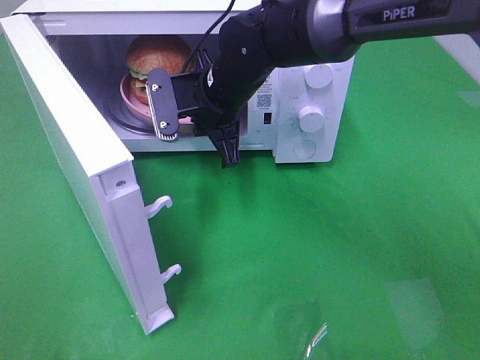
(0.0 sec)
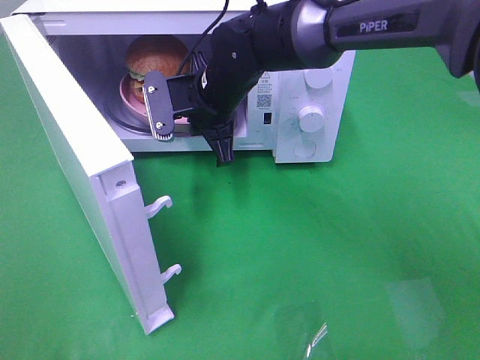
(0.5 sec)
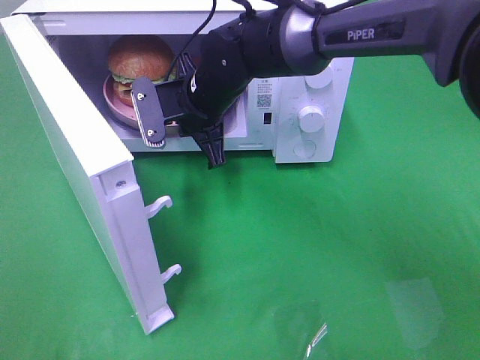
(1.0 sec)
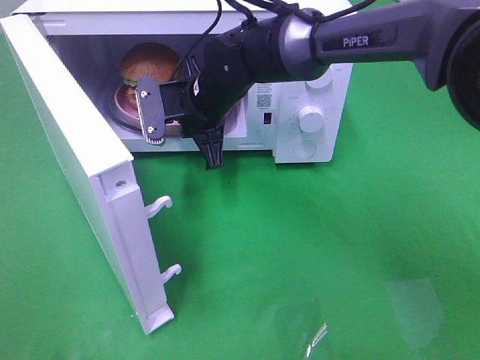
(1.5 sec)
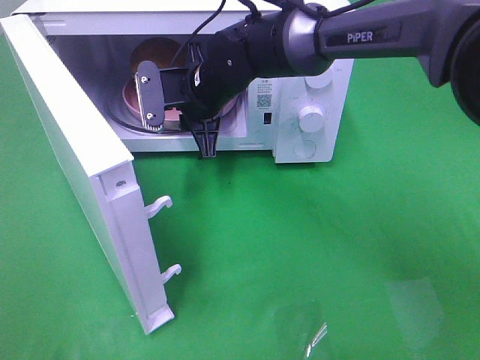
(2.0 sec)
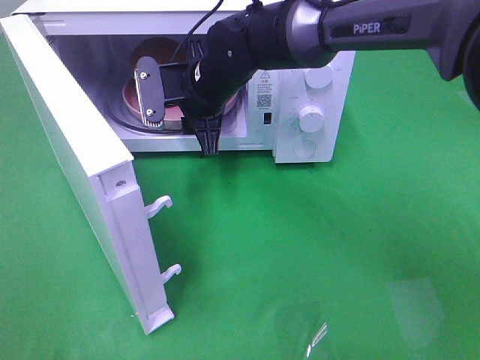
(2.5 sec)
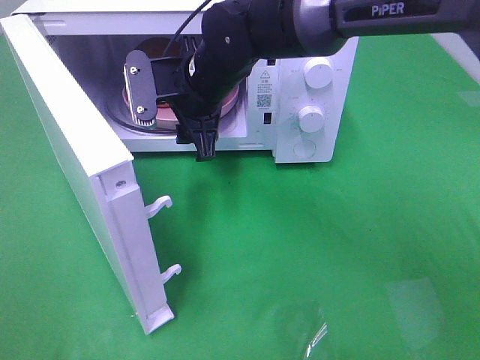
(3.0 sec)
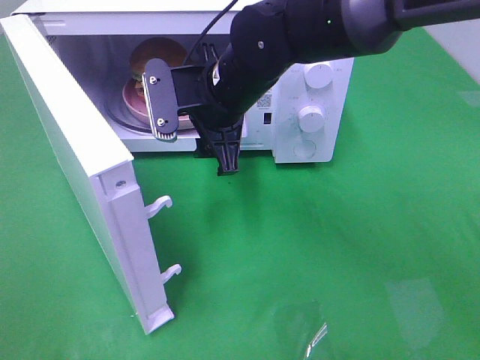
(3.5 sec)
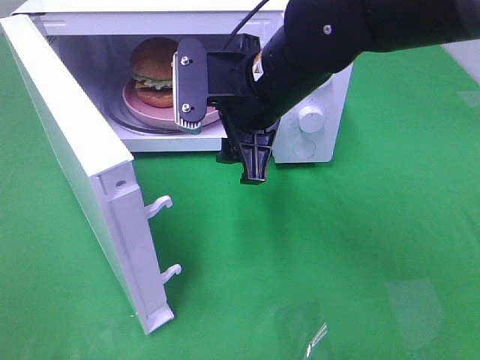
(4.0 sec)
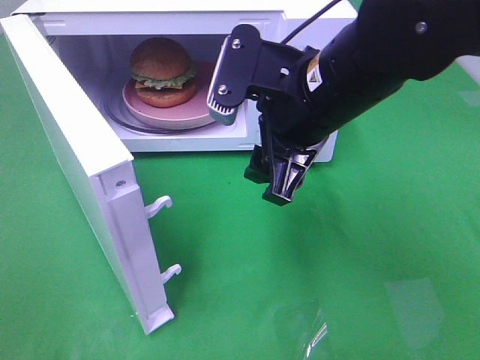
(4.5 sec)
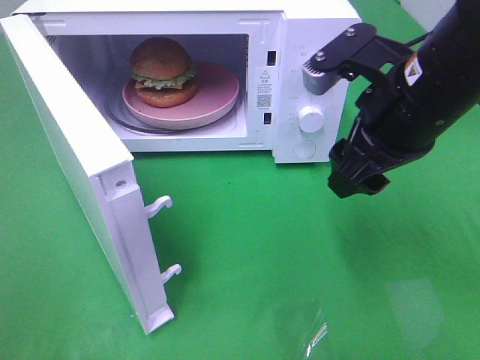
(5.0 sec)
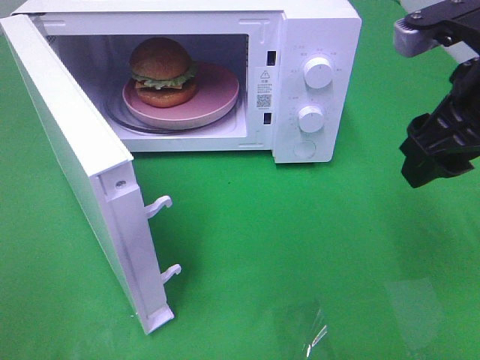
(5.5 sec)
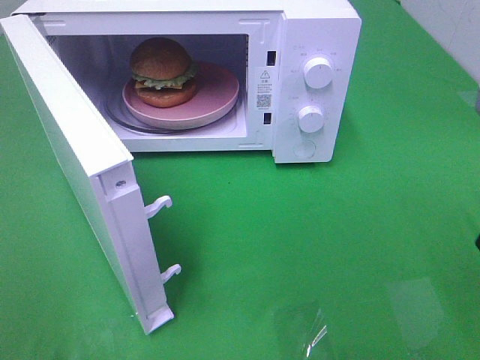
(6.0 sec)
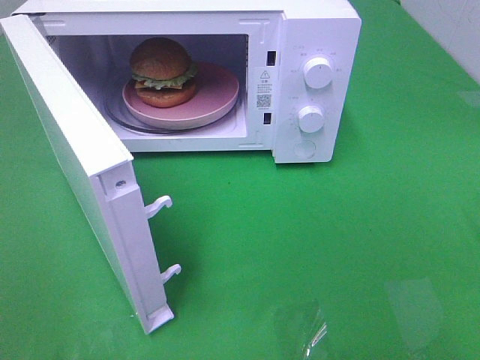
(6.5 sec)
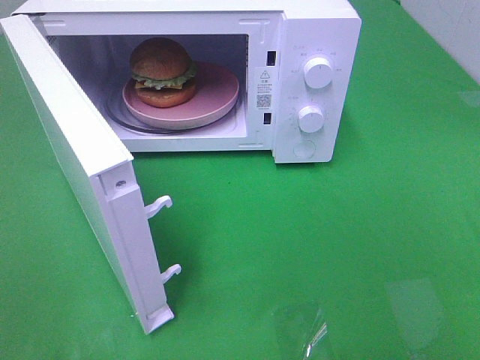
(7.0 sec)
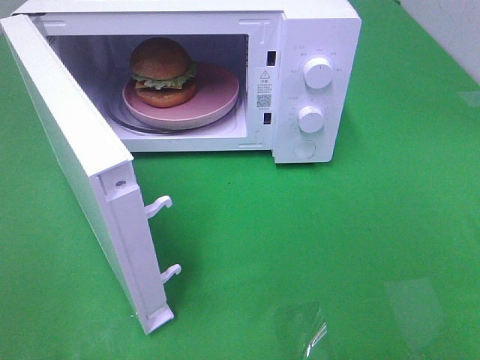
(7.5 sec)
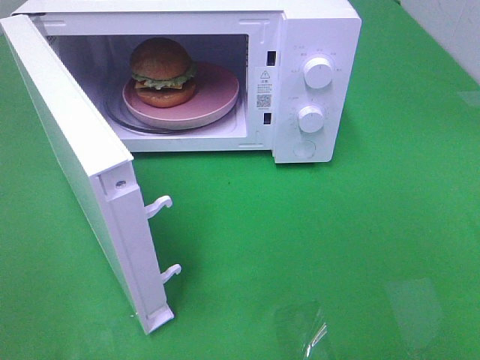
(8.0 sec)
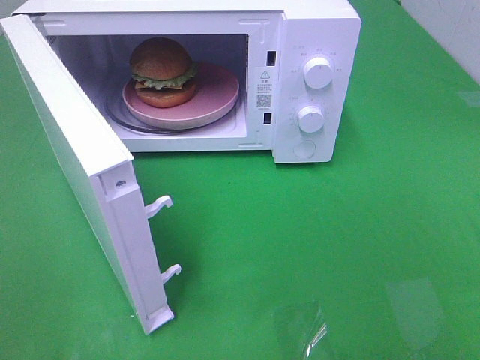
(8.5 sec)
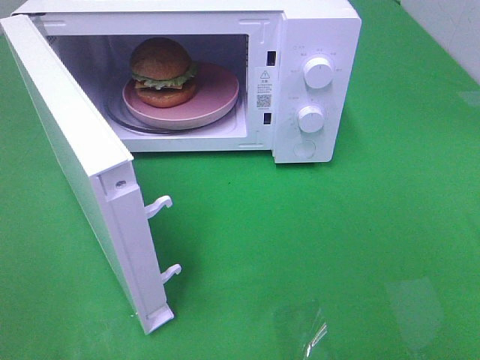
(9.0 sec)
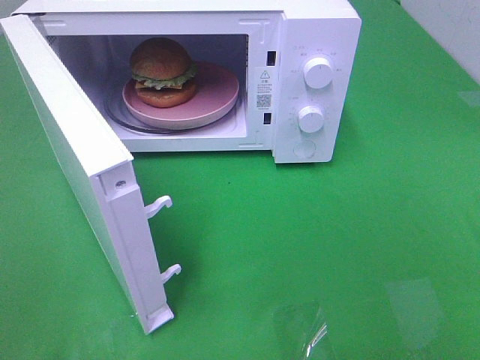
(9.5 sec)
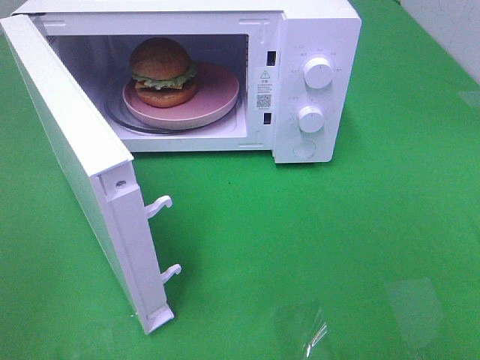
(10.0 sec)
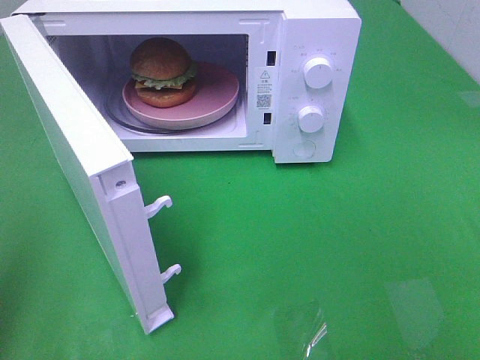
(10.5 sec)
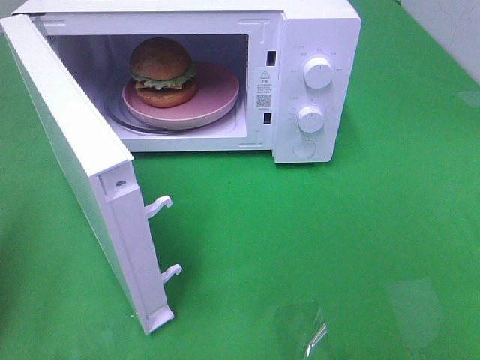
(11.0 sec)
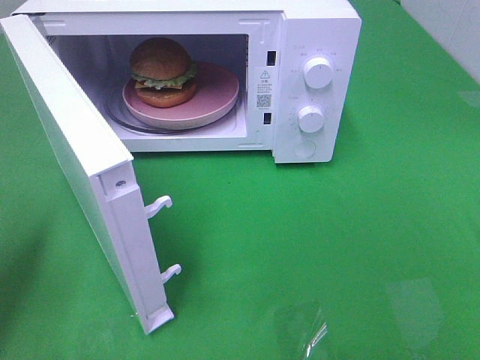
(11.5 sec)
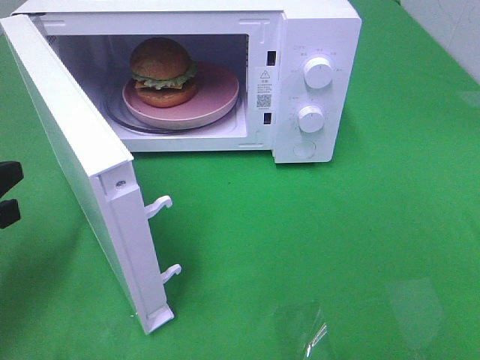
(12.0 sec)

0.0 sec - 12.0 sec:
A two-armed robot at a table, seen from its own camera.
Task of the whole recording: Heat the burger.
0.0 sec - 2.0 sec: The right gripper opens its fingers.
2.0 sec - 4.0 sec: The right gripper is displaced backward, upward and to the right by about 15 cm, and opens up.
4.0 sec - 6.0 sec: The right gripper travels to the right and backward by approximately 25 cm.
10.0 sec - 12.0 sec: The left gripper travels forward and downward by about 25 cm, and closes.

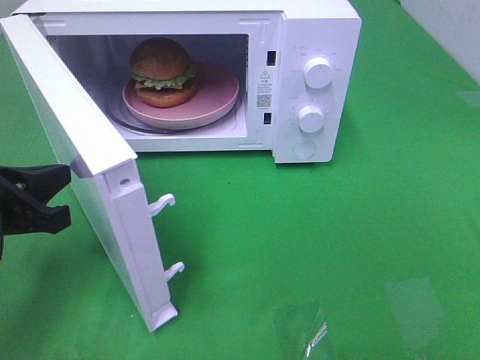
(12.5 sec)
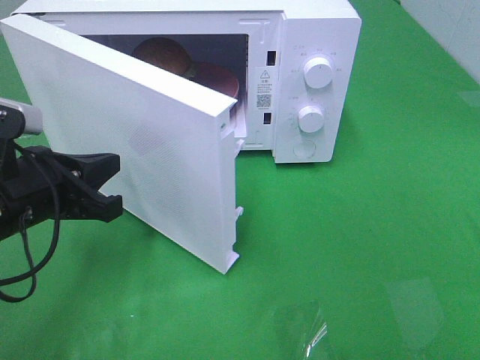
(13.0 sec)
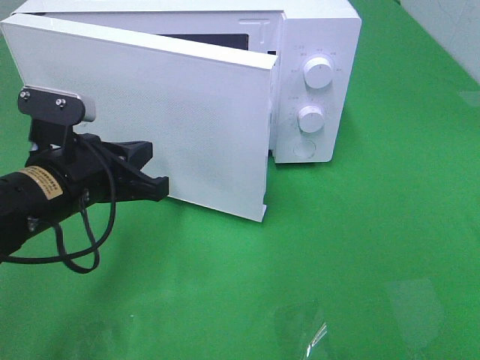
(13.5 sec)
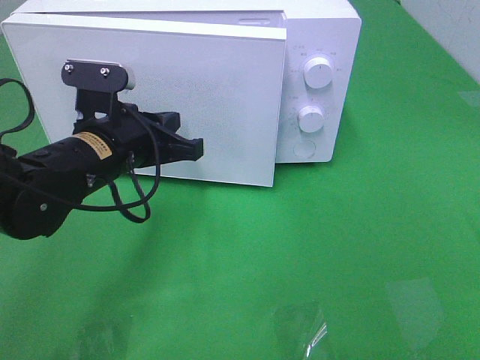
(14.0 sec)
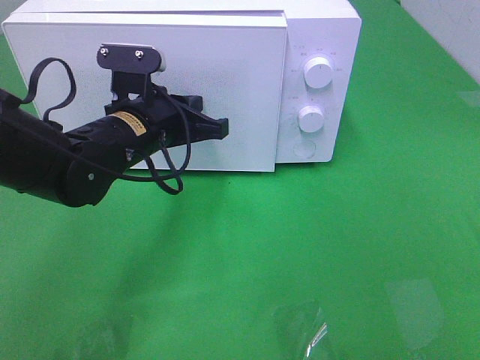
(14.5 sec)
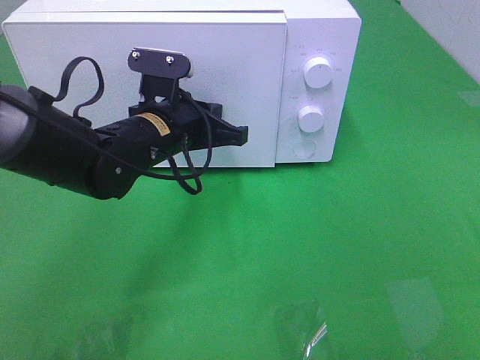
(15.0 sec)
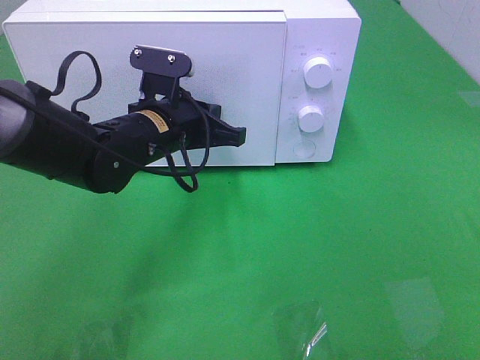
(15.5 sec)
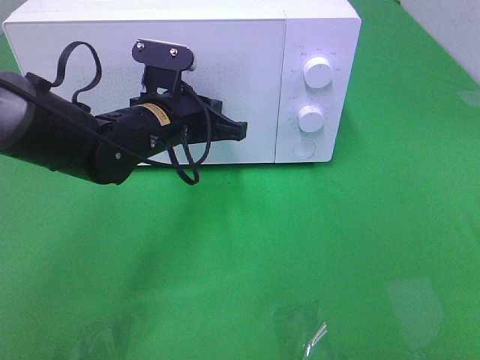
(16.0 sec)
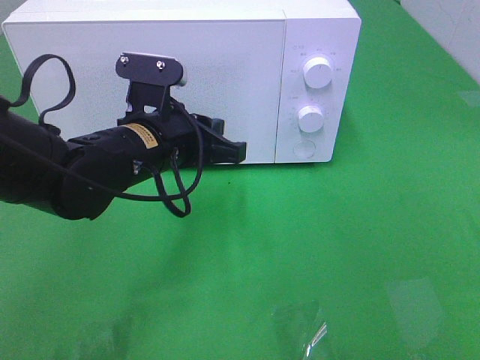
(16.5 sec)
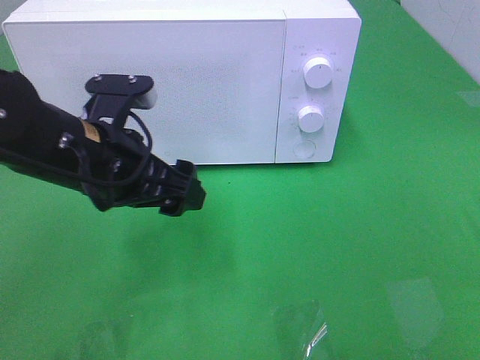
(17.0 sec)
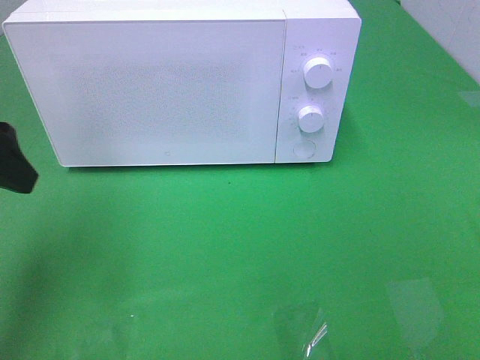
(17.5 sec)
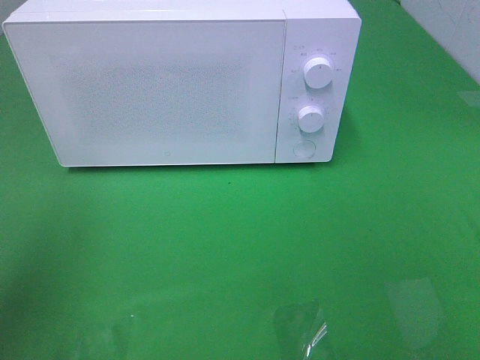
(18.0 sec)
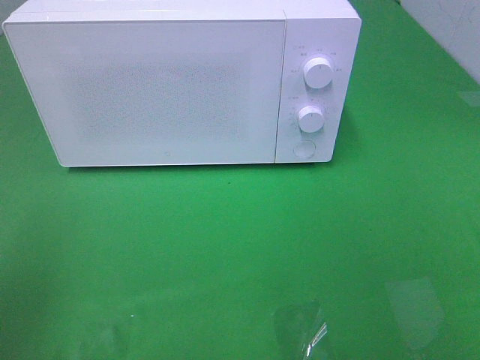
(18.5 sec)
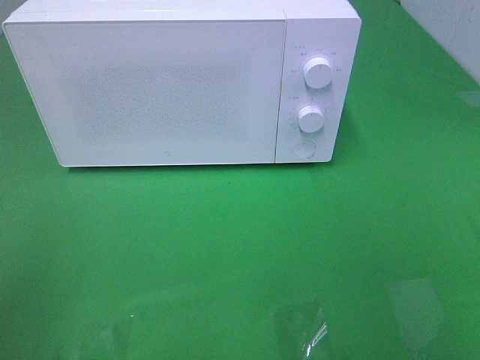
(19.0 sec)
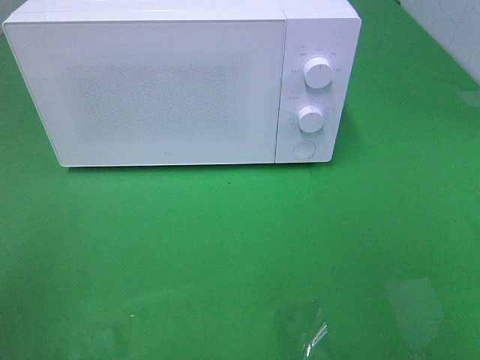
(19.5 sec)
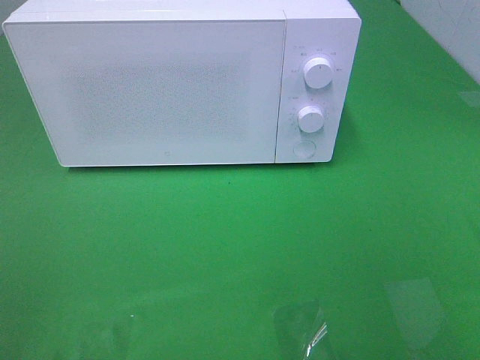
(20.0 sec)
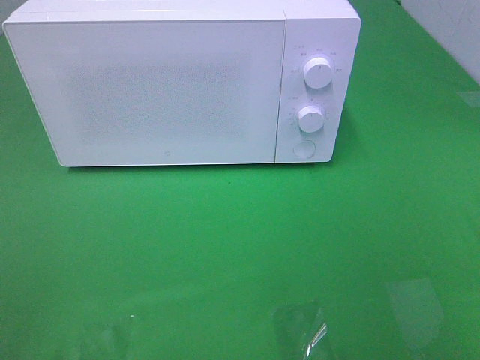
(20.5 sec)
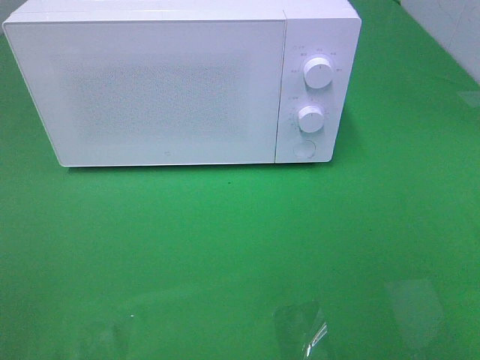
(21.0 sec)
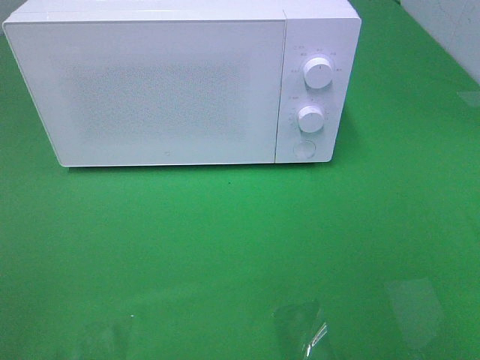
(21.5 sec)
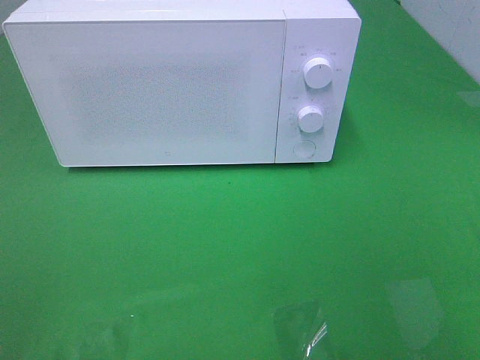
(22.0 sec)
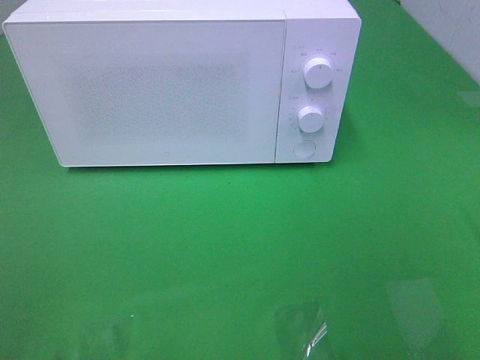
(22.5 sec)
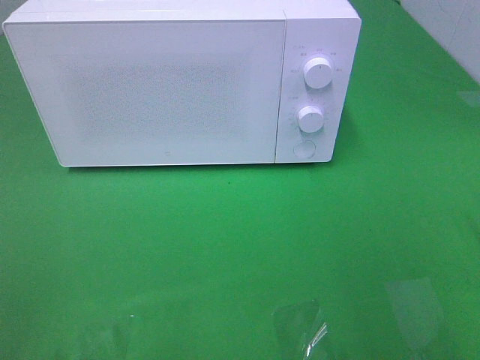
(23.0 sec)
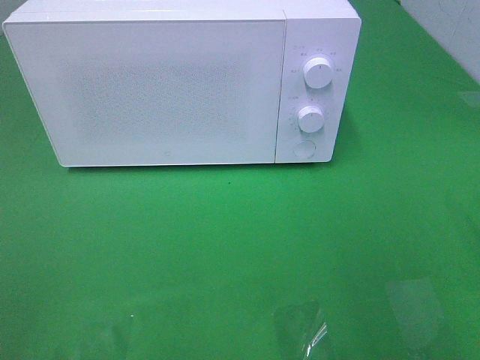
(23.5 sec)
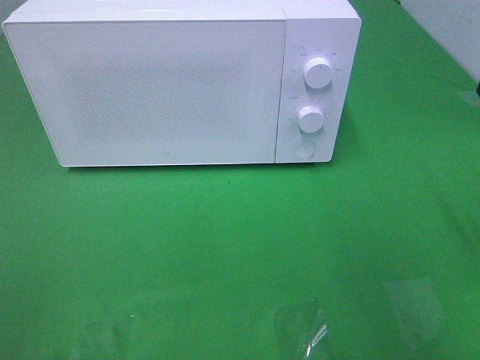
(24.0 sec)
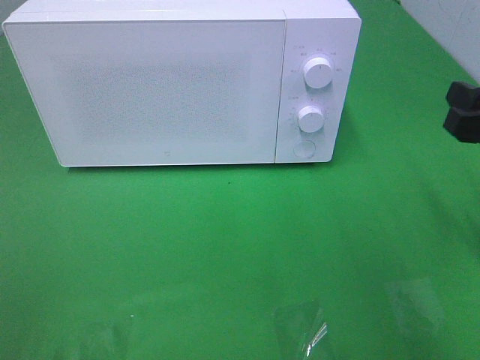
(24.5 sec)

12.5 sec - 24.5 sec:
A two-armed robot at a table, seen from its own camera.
Task of the whole recording: Heat the burger.
Step, 12.5 sec - 15.5 sec: Left hand: close the microwave door.
12.5 sec - 14.5 sec: The left gripper is displaced to the right and forward by approximately 20 cm.
14.5 sec - 16.5 sec: The left gripper opens its fingers.
16.5 sec - 18.5 sec: The left gripper moves to the left, backward and upward, approximately 30 cm, and opens up.
22.5 sec - 24.5 sec: The right gripper heads forward and downward, covering about 20 cm.

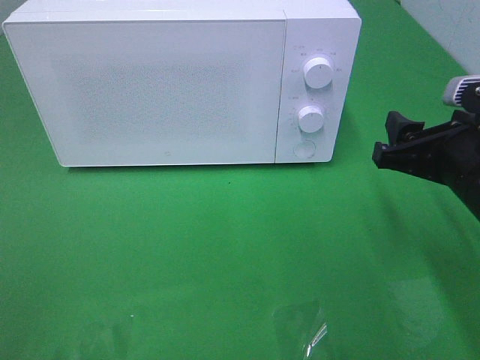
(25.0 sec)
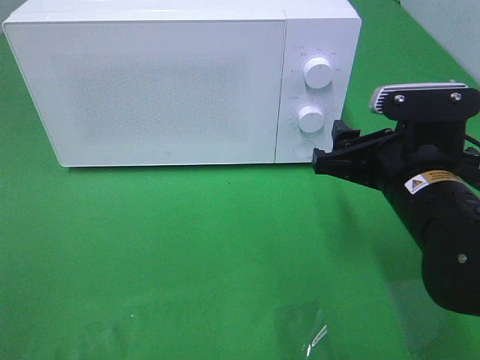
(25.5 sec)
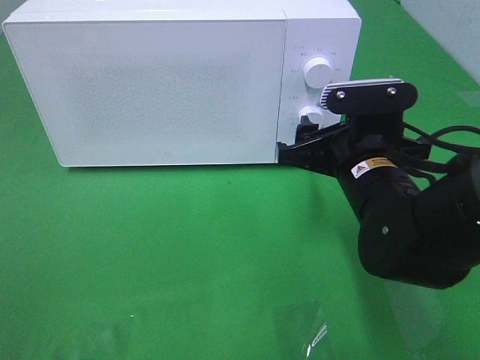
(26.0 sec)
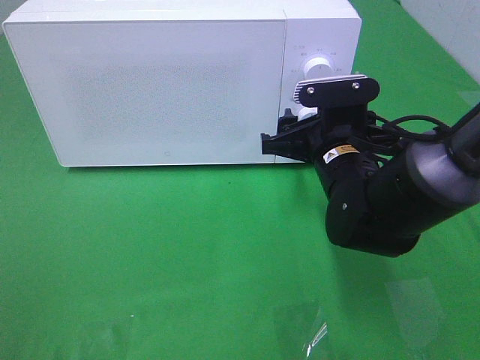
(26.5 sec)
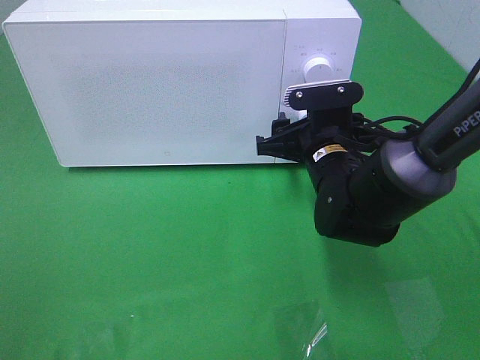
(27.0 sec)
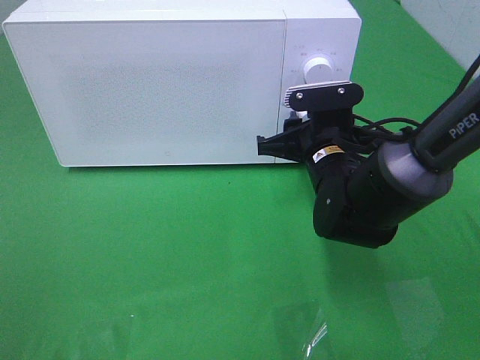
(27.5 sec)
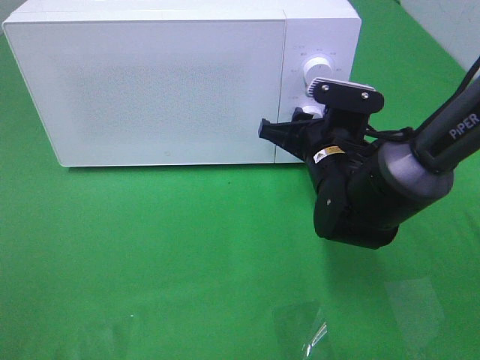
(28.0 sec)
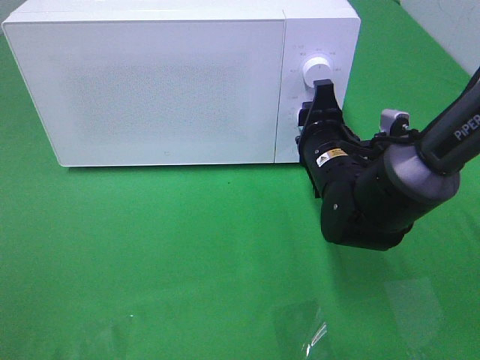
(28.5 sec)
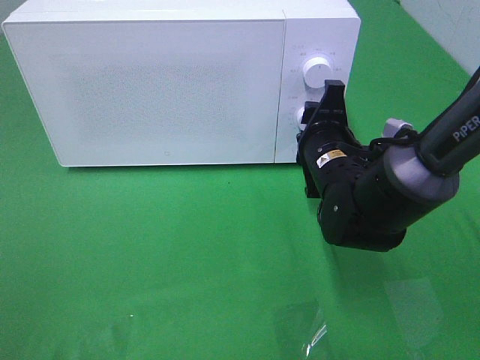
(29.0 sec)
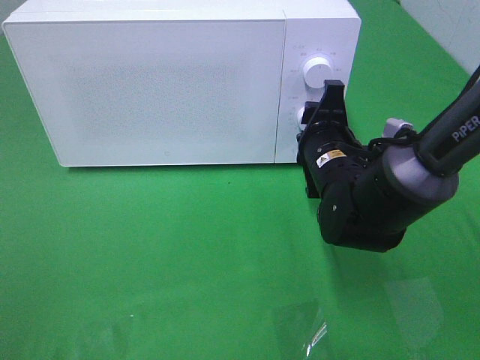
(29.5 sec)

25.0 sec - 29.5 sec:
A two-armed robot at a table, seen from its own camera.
Task of the whole recording: Heat the burger.
Step, 25.0 sec - 27.5 sec: Right hand: twist timer button.
25.0 sec - 27.0 sec: The right gripper heads to the left, forward and downward, covering roughly 15 cm.
